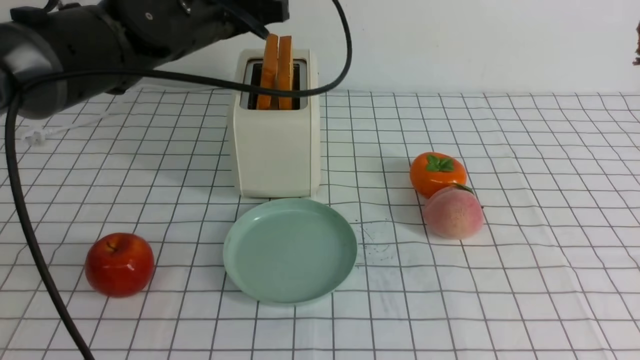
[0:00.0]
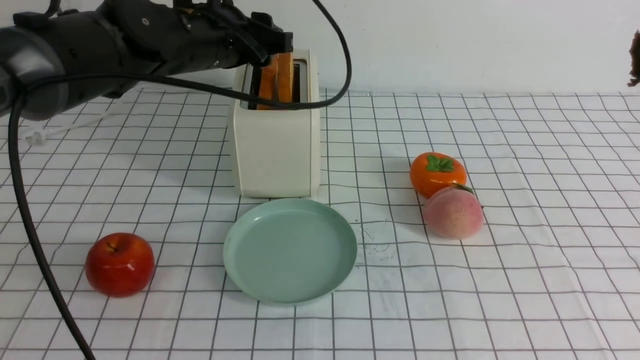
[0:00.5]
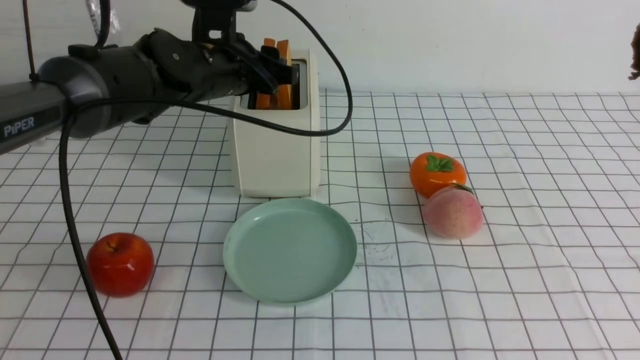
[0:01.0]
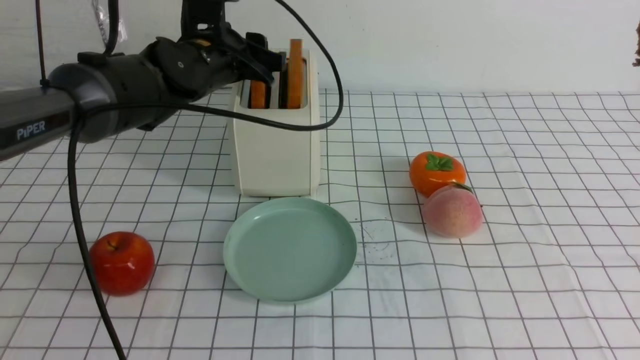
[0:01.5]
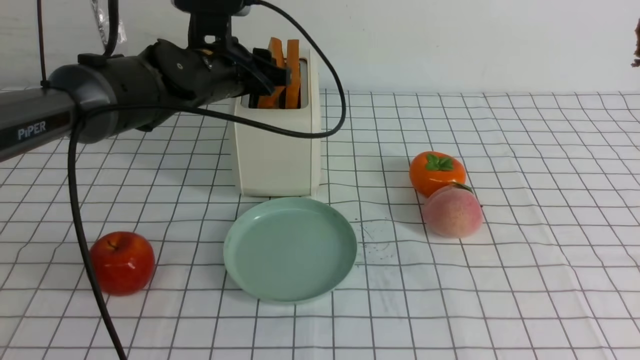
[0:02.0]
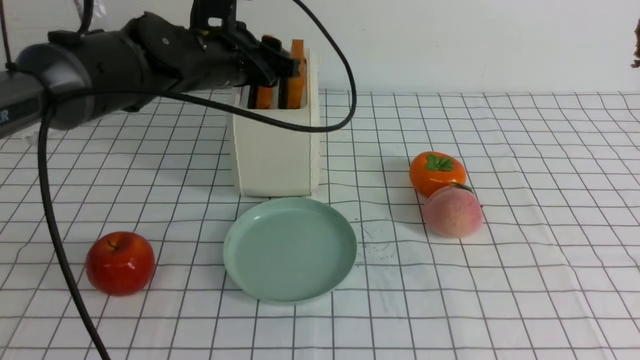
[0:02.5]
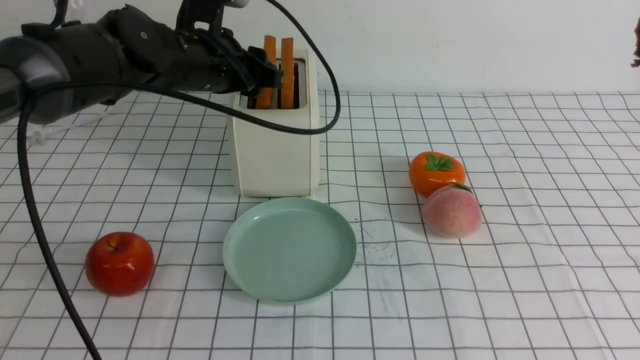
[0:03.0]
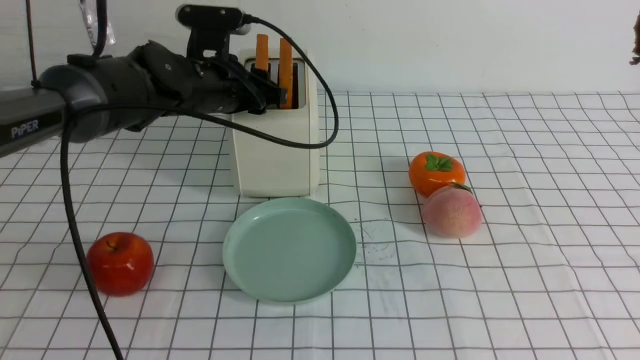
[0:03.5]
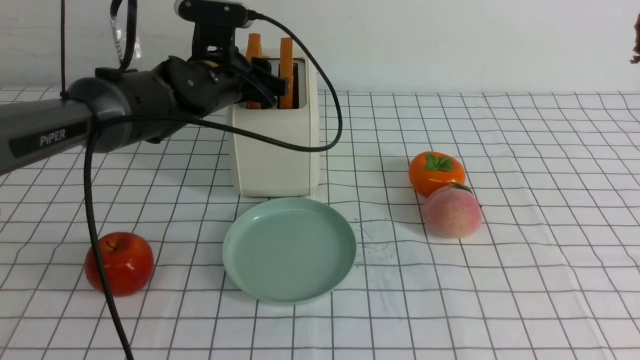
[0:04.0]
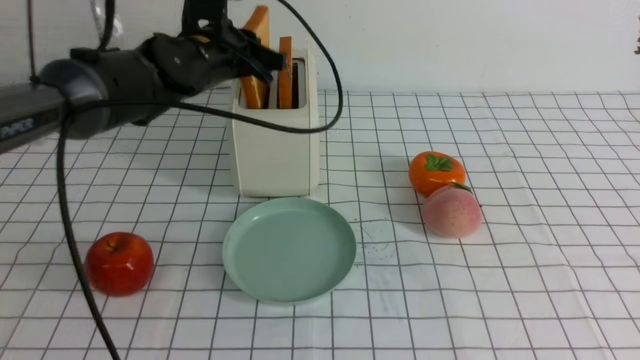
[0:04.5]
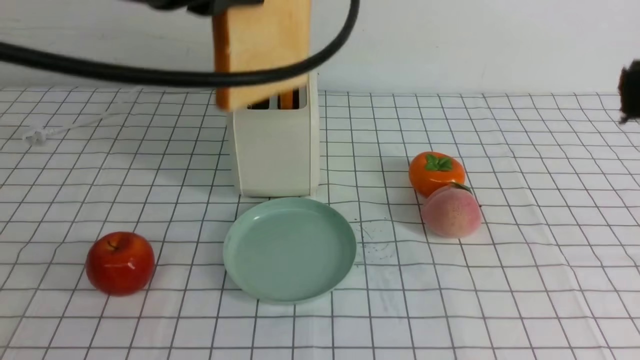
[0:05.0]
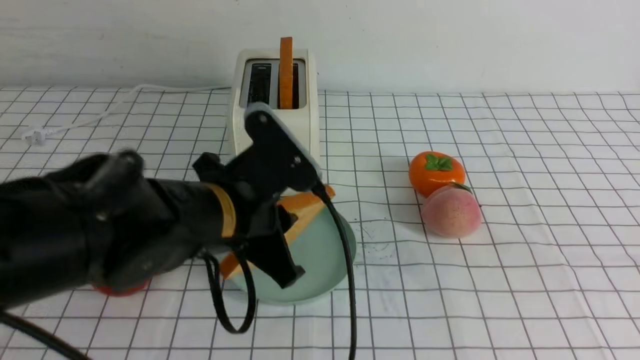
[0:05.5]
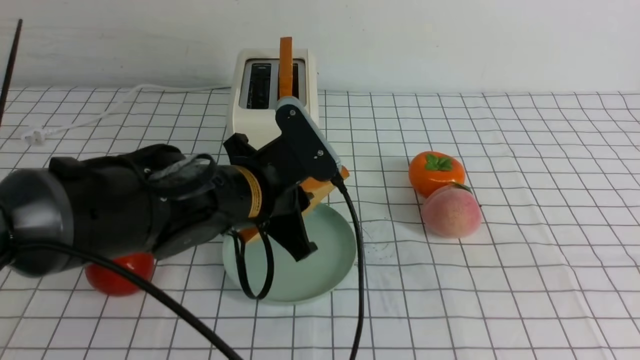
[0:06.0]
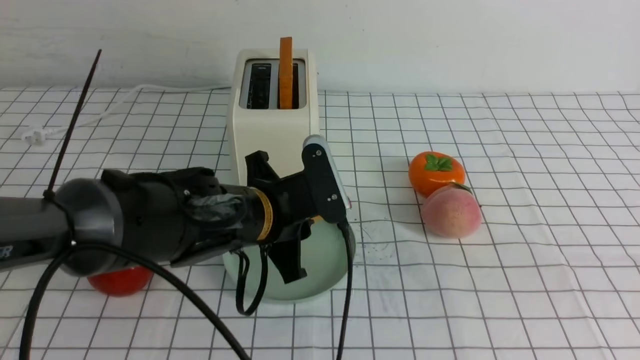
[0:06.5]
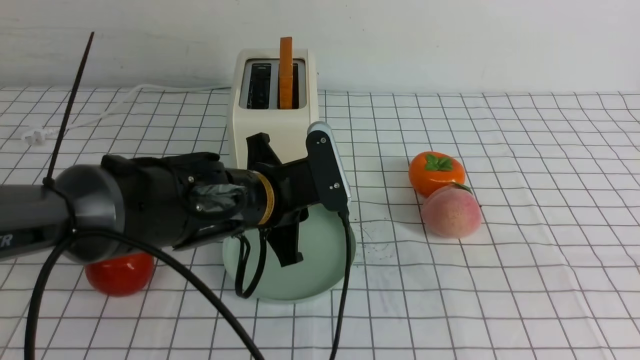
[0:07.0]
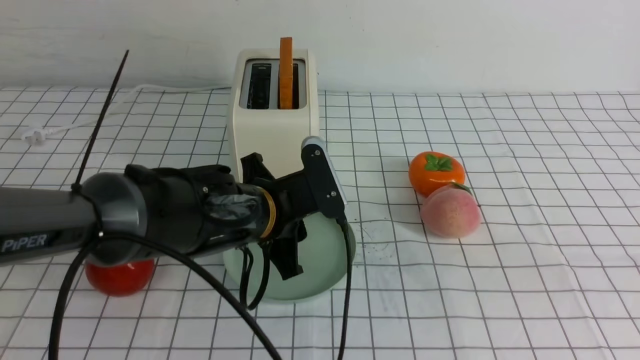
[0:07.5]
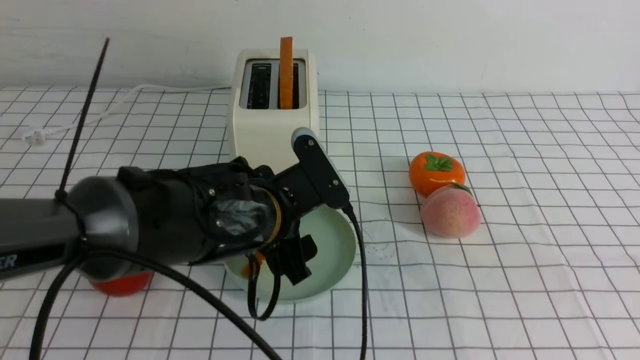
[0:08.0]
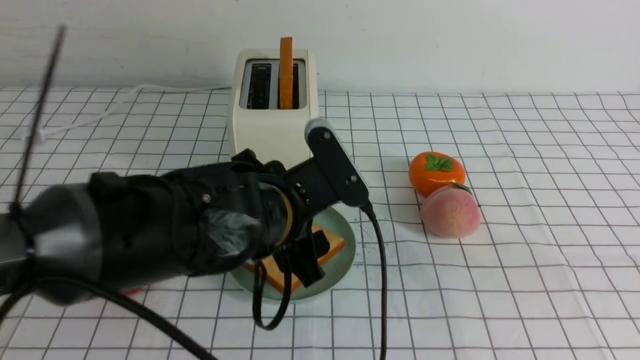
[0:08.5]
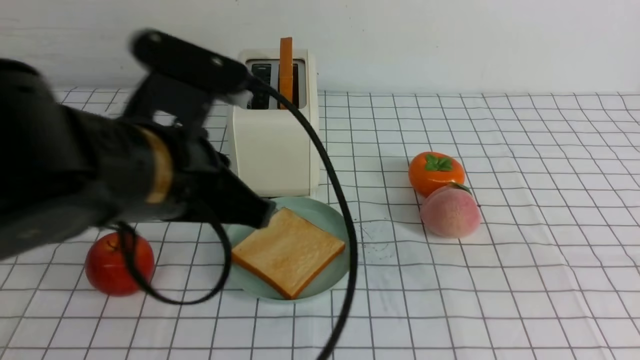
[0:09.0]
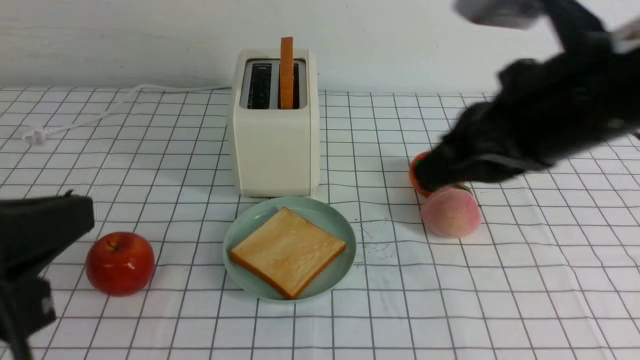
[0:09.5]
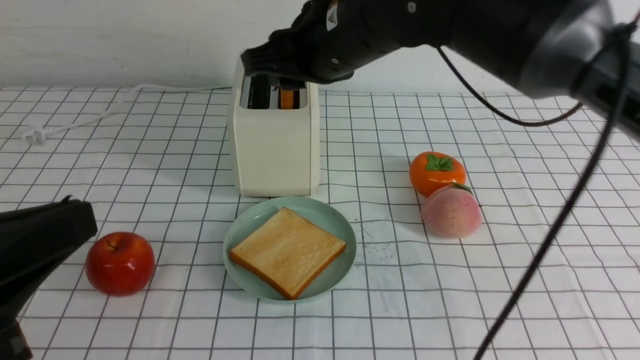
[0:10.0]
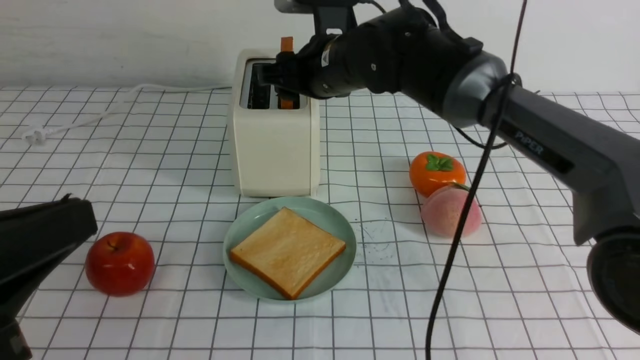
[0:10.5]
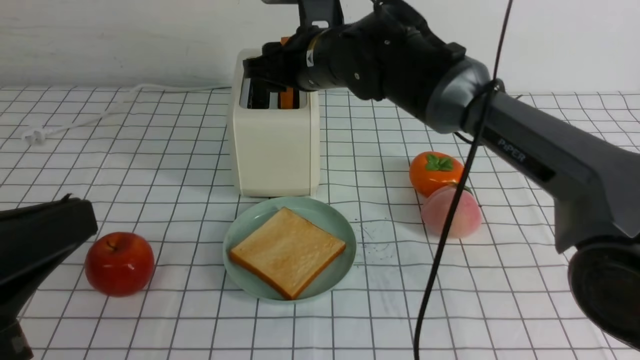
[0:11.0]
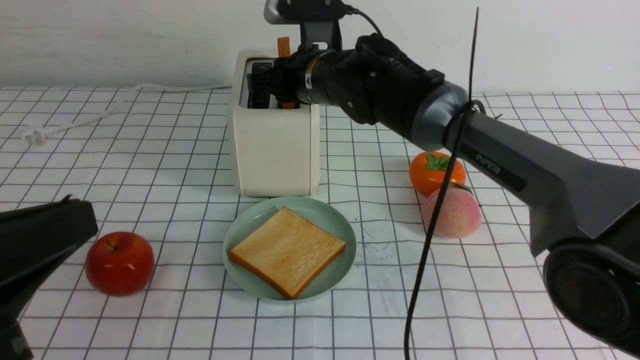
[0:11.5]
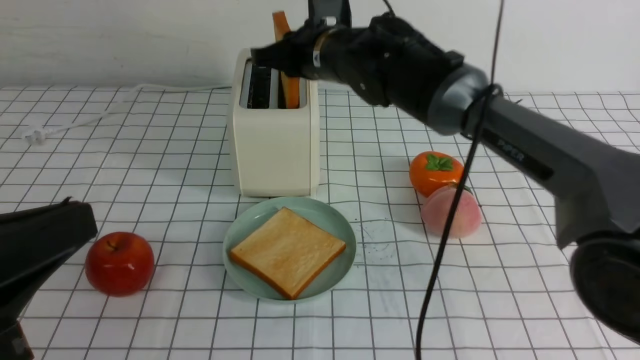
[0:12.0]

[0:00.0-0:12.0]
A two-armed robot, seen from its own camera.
Task of the whole recording: take toasted bread from bread machine on white checkered table place on plate.
Step, 0:00.0 to 0:04.5: use the left arm to take out a slice of bread.
Step, 0:05.0 to 0:08.5: use the left arm to put a slice of bread into the empty plate.
Step, 0:09.0 to 0:12.0: use the right arm to take out a slice of bread.
0:00.0 to 0:02.0: The left gripper moves downward, about 5 cm, and opens up.
0:02.0 to 0:04.0: The grippers stay close to where they were, moving slightly.
0:04.0 to 0:06.0: The right gripper heads backward, covering about 5 cm. The left gripper shifts some 15 cm backward.
0:06.0 to 0:08.0: The left gripper opens up.
0:08.0 to 0:10.0: The left gripper goes about 30 cm backward, to the left and upward, and closes. Meanwhile the right gripper heads forward and to the left, covering some 40 cm, and opens its fingers.
0:10.0 to 0:12.0: The right gripper goes roughly 5 cm forward, and closes its fingers.

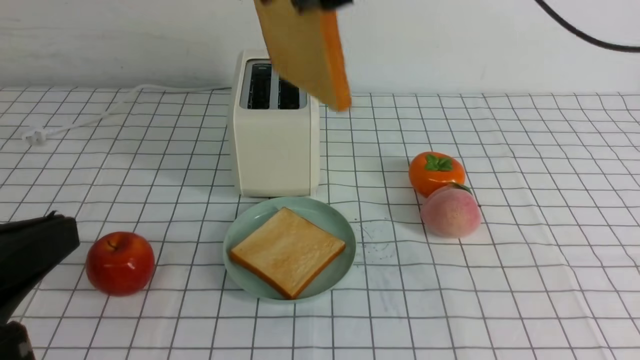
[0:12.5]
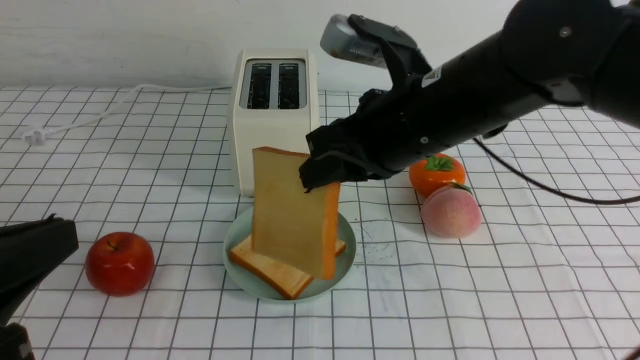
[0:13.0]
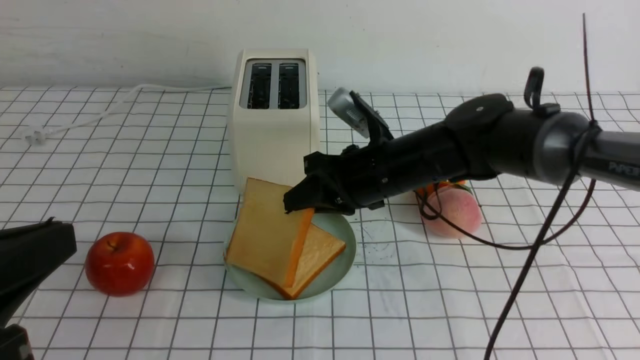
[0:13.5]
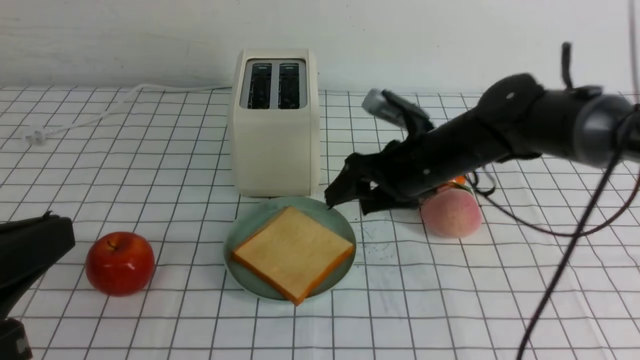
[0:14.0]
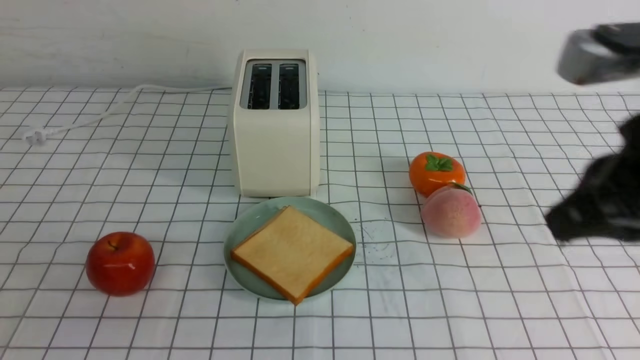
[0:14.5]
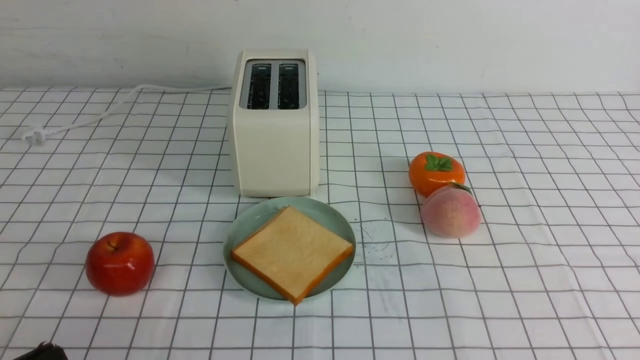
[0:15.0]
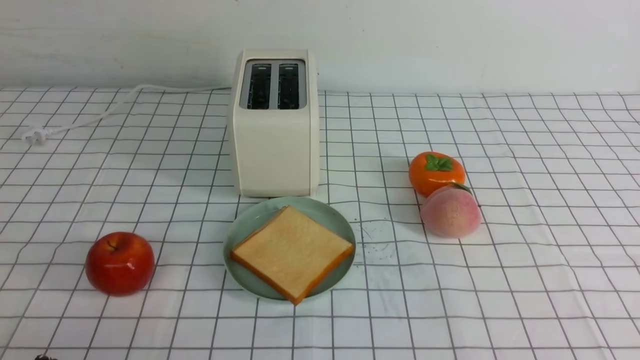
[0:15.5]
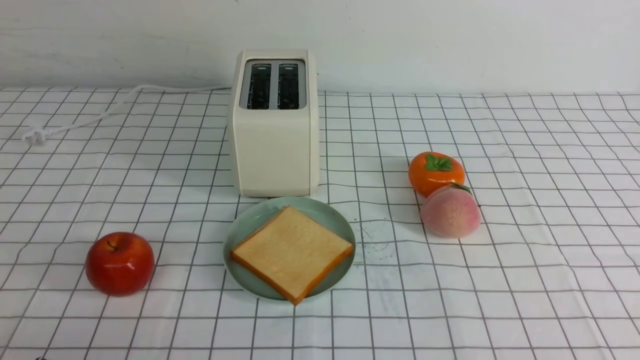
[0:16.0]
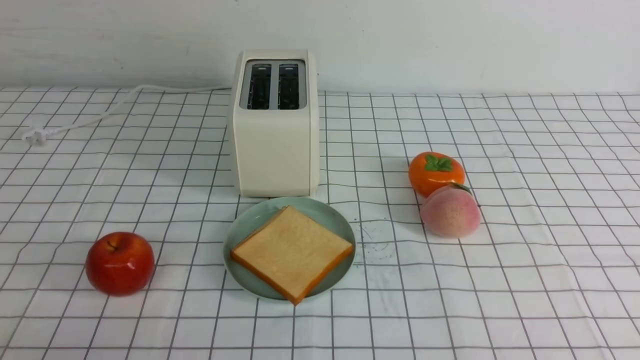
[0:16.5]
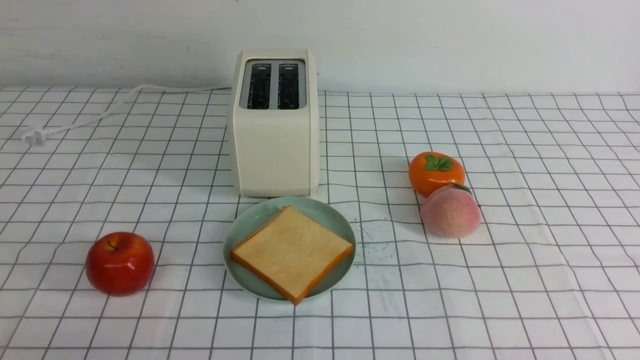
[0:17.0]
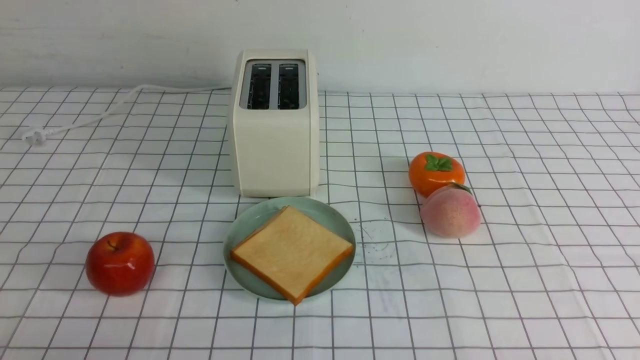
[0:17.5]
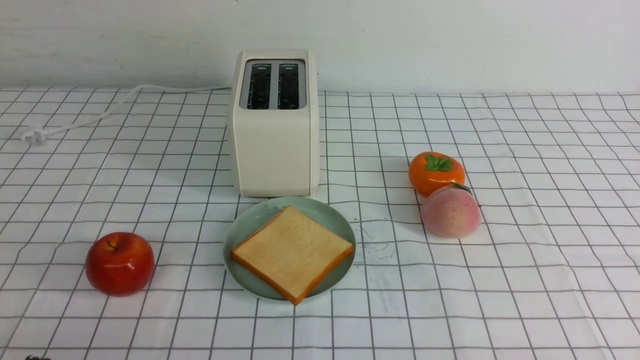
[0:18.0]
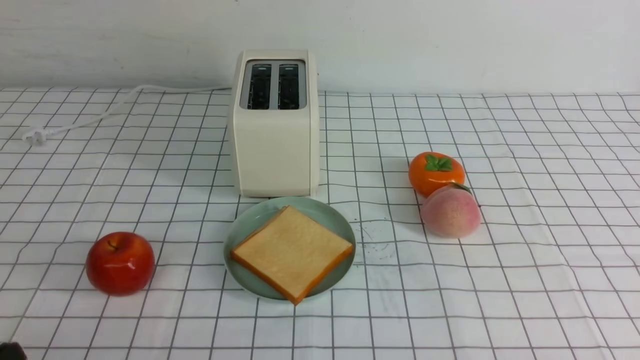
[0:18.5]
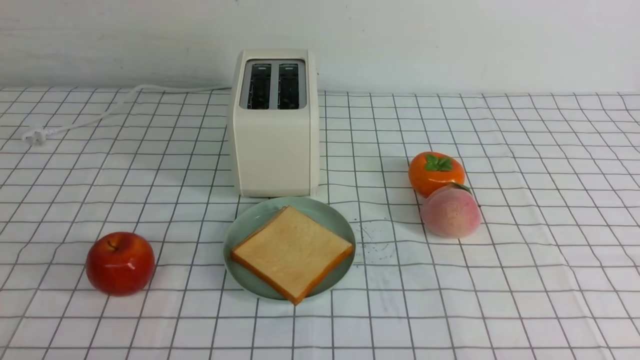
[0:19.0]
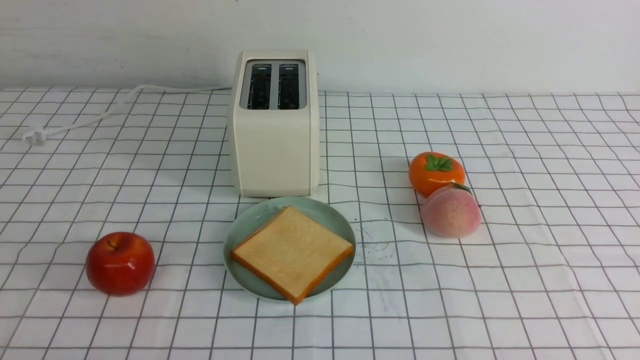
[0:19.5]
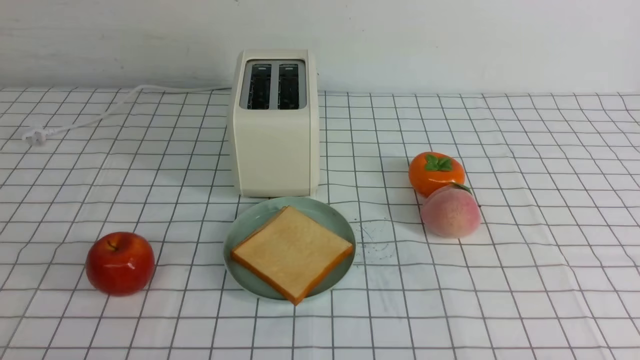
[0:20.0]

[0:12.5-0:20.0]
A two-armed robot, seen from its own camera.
Task of the whole recording: take toasted bread from bread machine on white checkered table place on plate.
Step, 0:12.5 to 0:14.0: use the right arm to put a slice of bread into the plate.
0:12.5 to 0:14.5: The left gripper travels downward by some 5 cm. Meanwhile the right gripper travels to the right and backward by approximately 20 cm, moves approximately 25 cm downward and comes back, and opens and closes again.
0:14.5 to 0:16.5: The right gripper travels downward, backward and to the right by some 25 cm.
